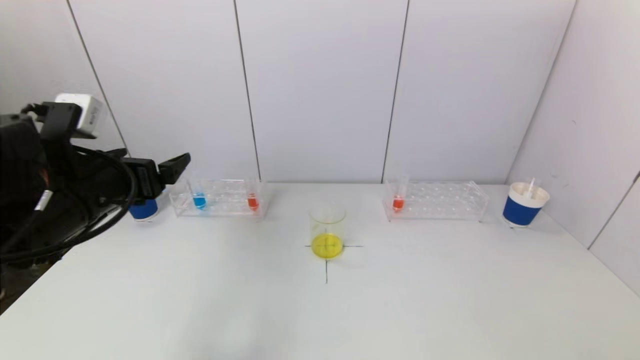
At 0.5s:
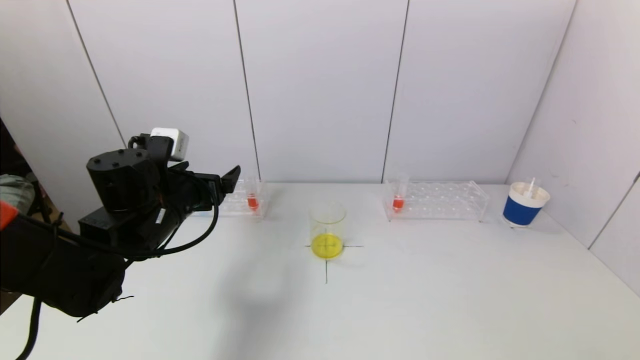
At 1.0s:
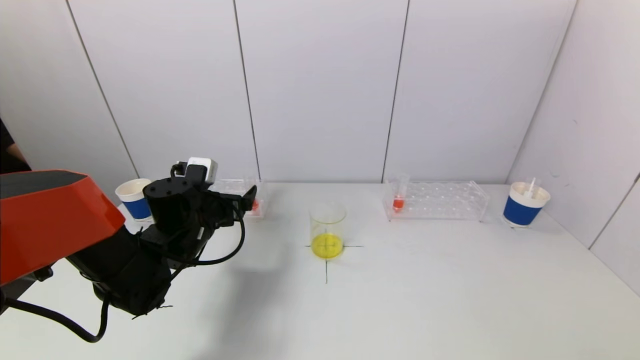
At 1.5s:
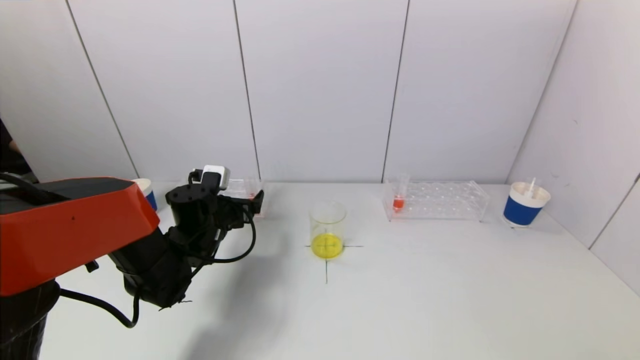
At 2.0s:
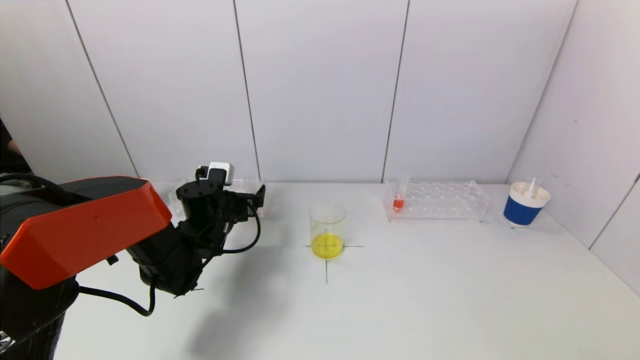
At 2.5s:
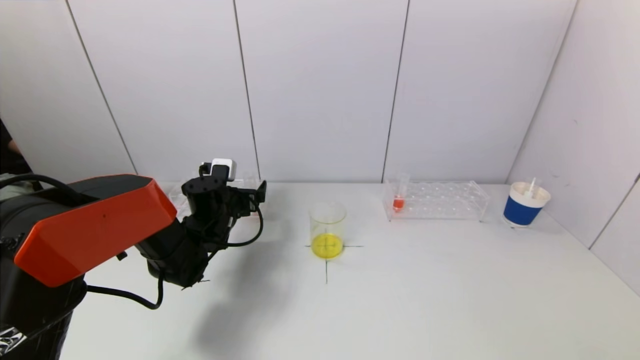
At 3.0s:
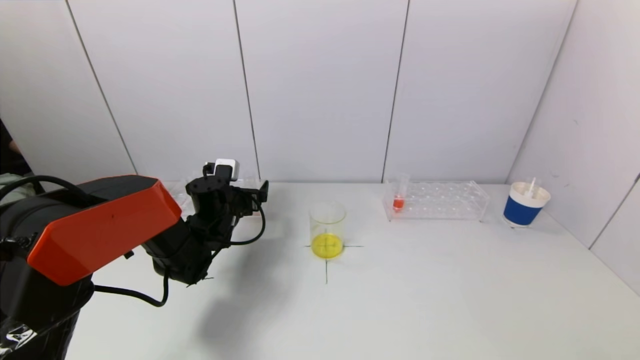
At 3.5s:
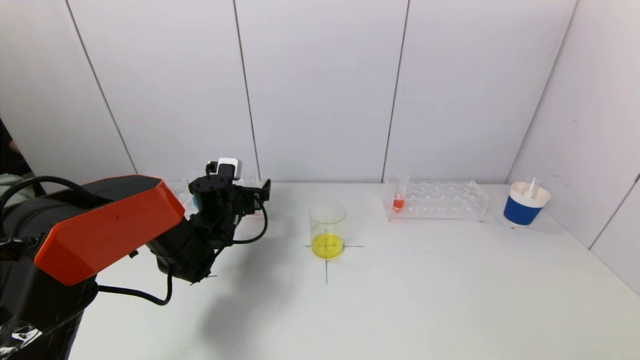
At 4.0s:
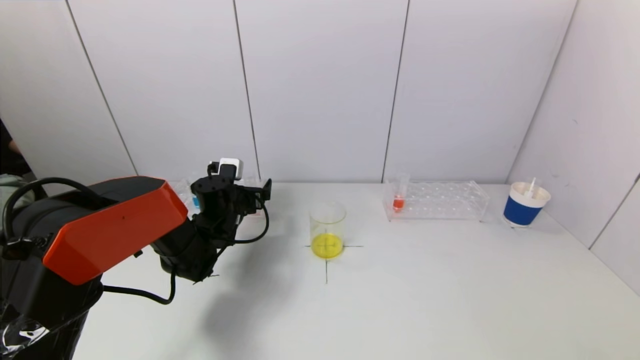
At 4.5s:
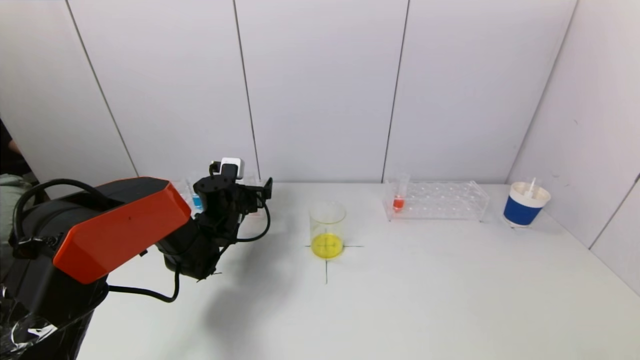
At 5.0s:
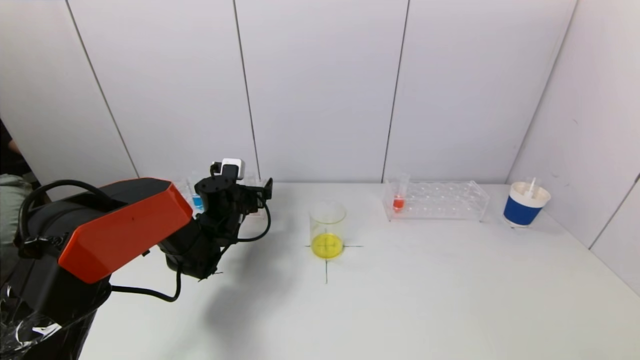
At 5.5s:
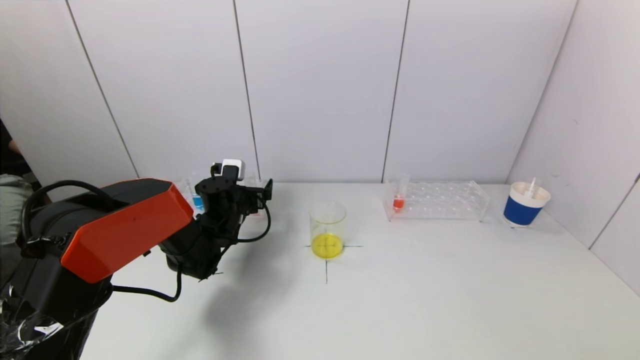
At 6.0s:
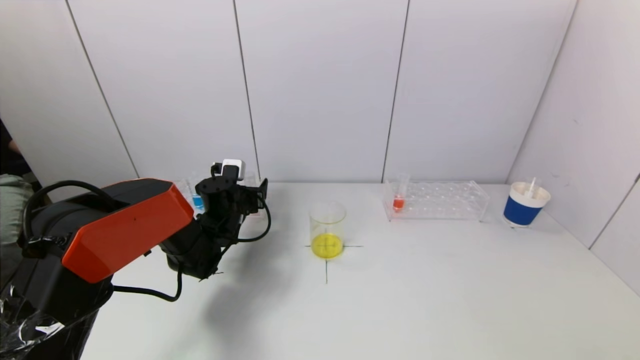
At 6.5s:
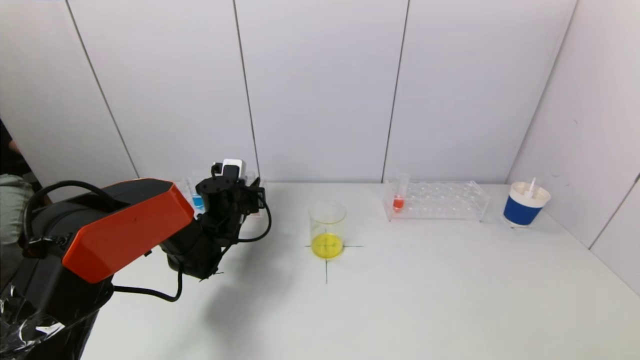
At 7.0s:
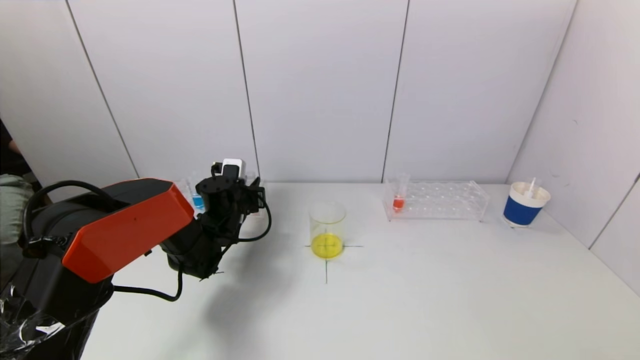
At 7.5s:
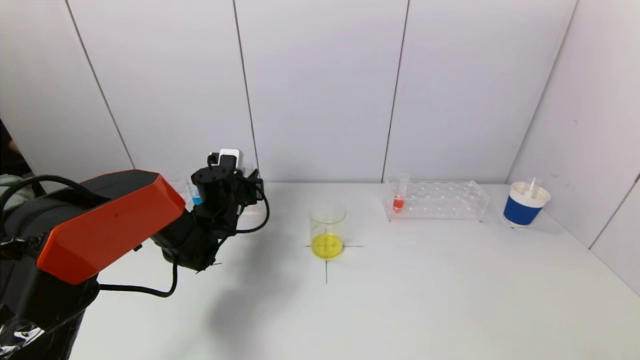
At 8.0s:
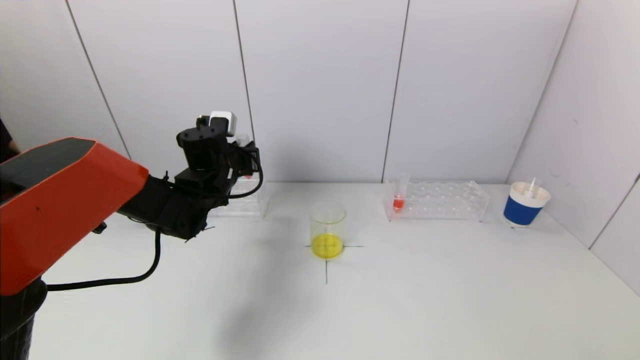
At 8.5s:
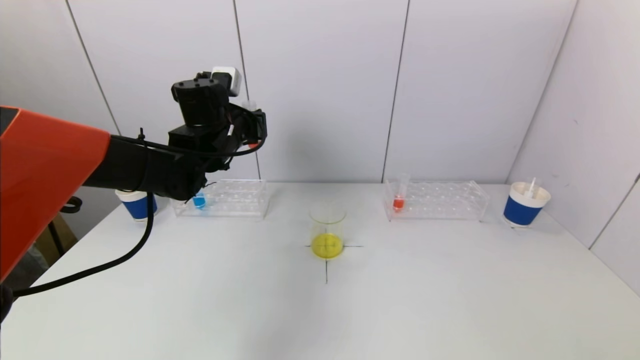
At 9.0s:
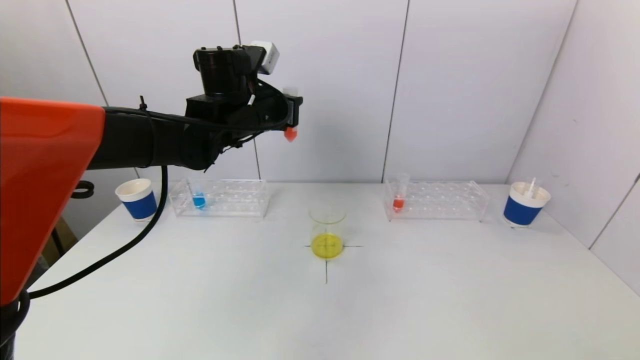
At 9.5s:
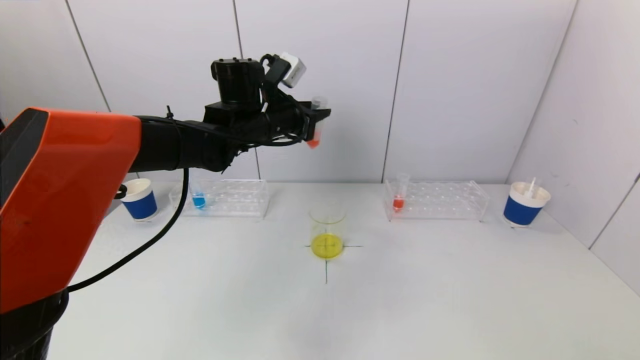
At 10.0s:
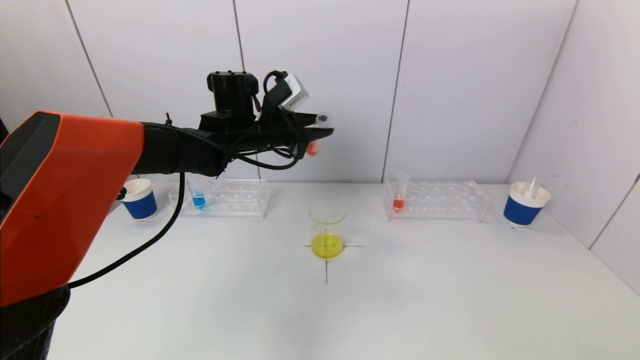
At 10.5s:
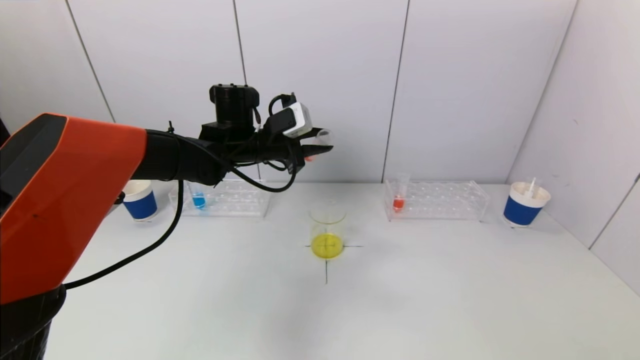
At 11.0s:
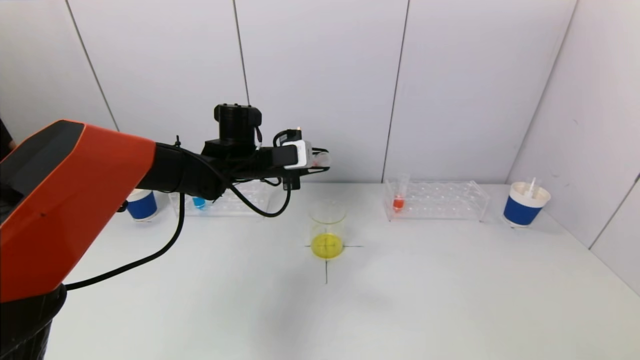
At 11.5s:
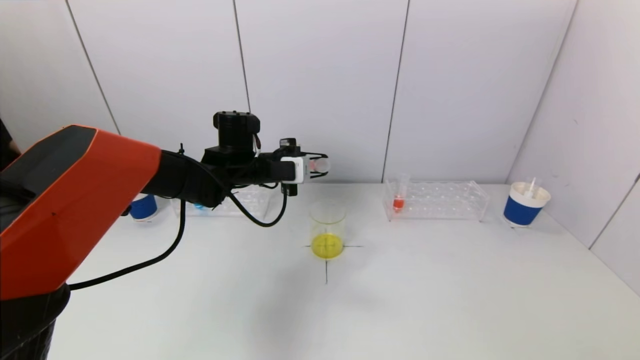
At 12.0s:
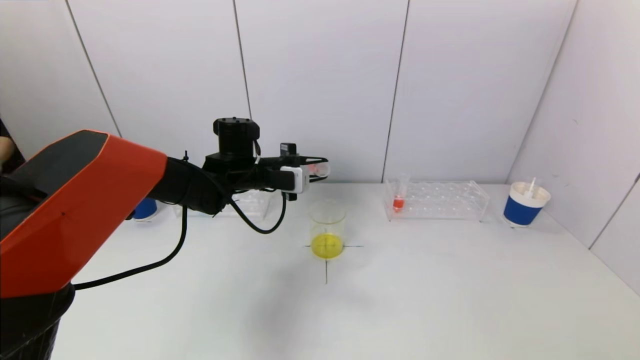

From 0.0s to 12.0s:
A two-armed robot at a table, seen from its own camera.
Task of the whole recording: pick up a test tube with pigment on left test tube rack and a test tube with pigment on right test tube rack by grippers and pour them into the beaker.
Step, from 0.0s to 6.5s: Grasp the red reagent with the left gripper.
From 0.0s to 2.0s: The left gripper travels downward, forward and to the right by about 25 cm.
From 2.0s to 4.0s: The grippers make only small movements.
From 4.0s to 6.0s: The left gripper closes its fingers.
From 6.0s to 8.0s: The left gripper heads upward, covering about 10 cm, and closes up.
From 8.0s to 10.0s: The left gripper travels upward and to the right by some 10 cm.
From 10.0s to 12.0s: The left gripper heads downward, covering roughly 5 cm.

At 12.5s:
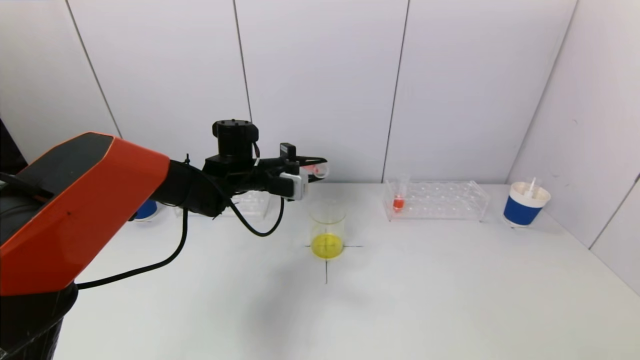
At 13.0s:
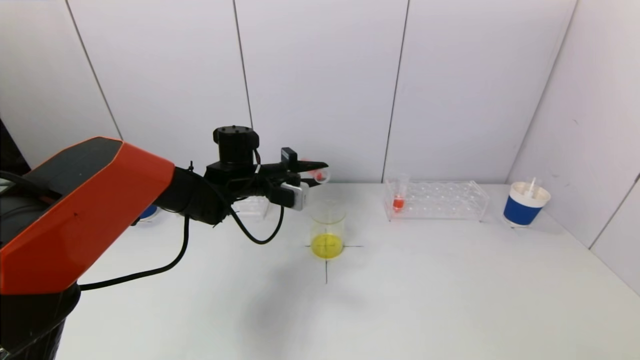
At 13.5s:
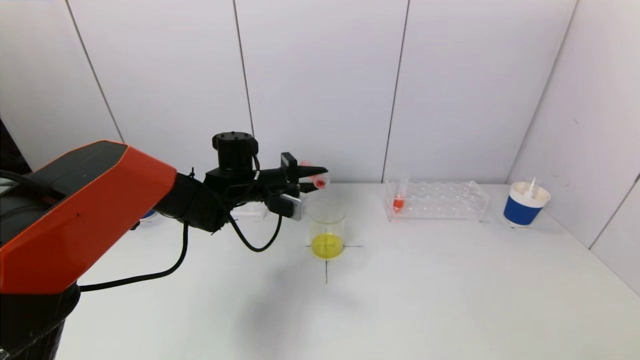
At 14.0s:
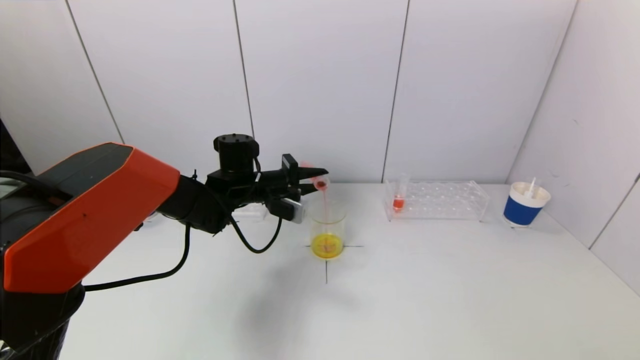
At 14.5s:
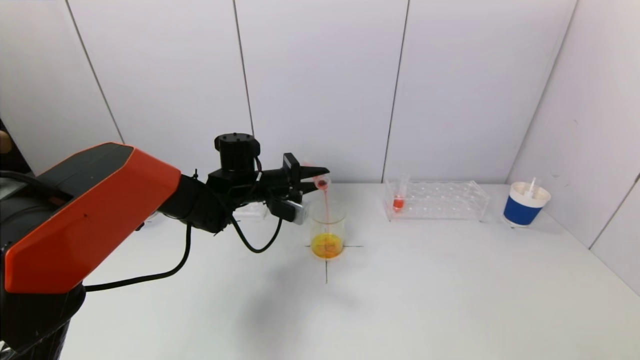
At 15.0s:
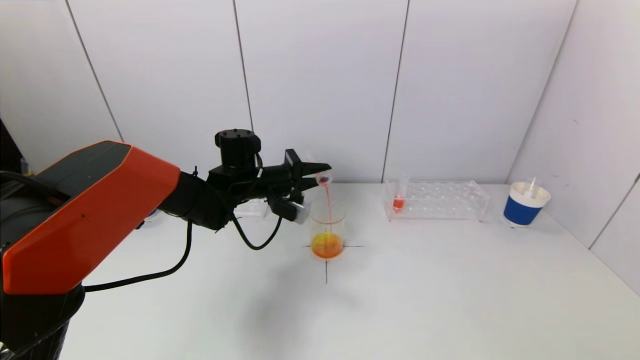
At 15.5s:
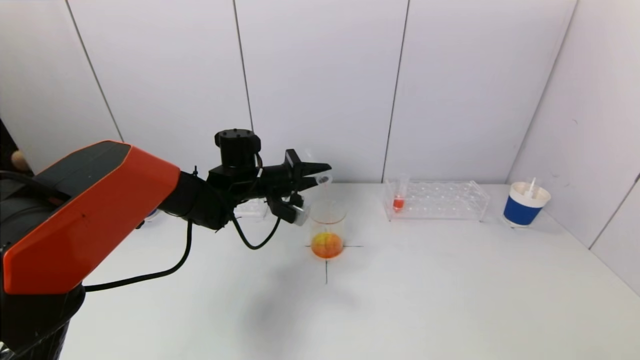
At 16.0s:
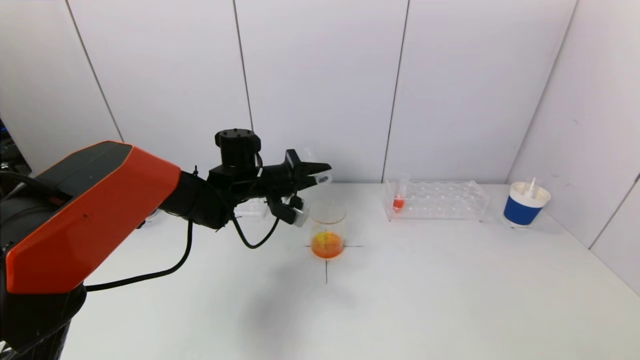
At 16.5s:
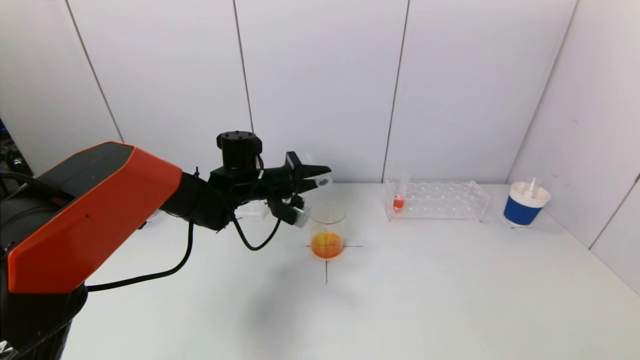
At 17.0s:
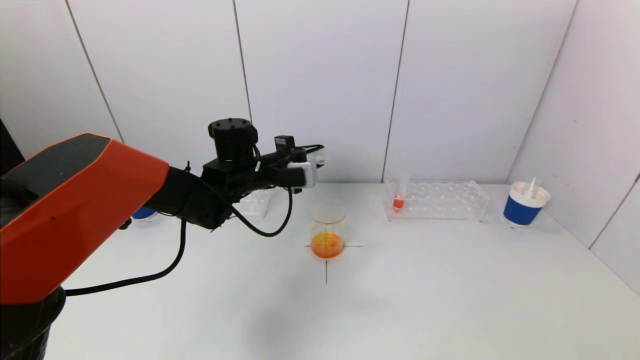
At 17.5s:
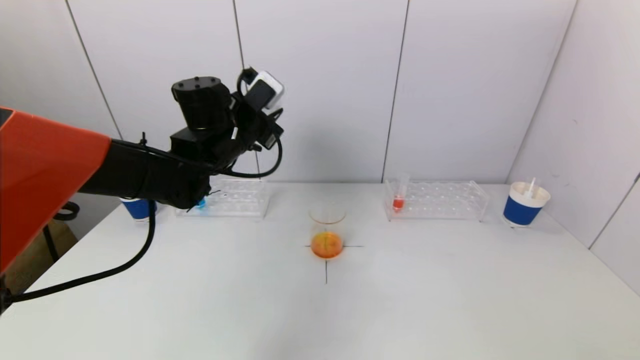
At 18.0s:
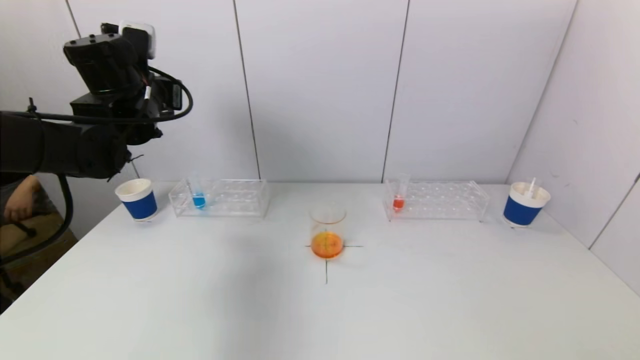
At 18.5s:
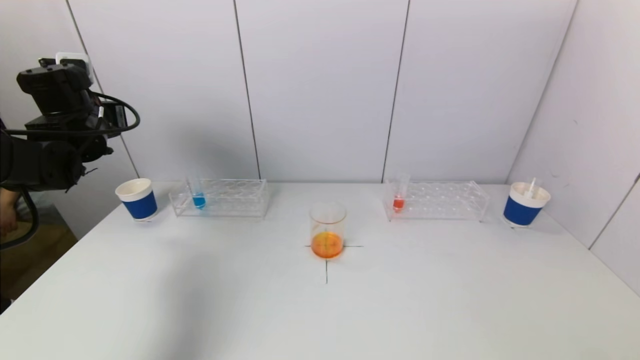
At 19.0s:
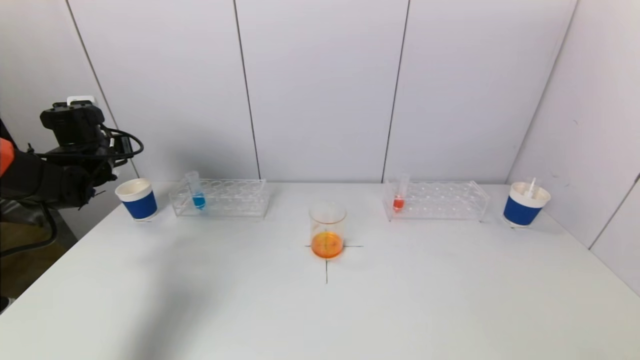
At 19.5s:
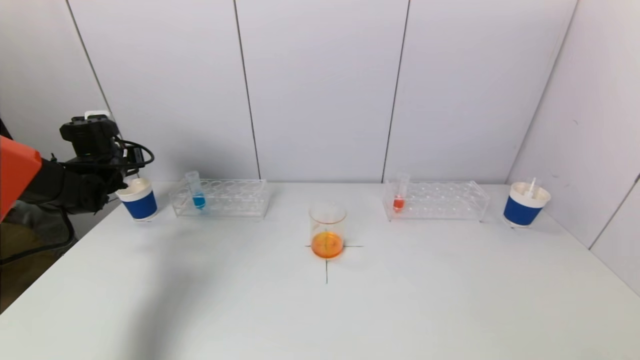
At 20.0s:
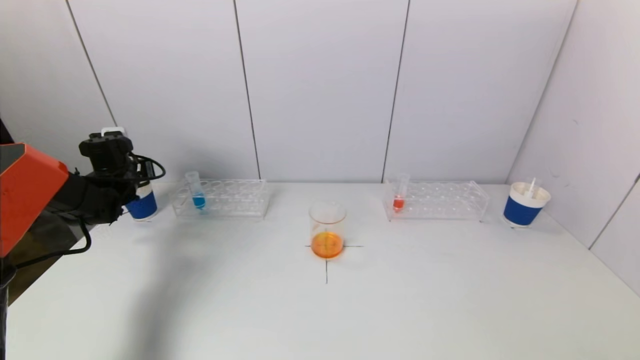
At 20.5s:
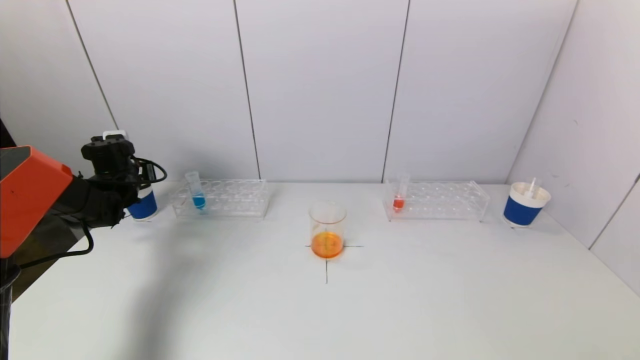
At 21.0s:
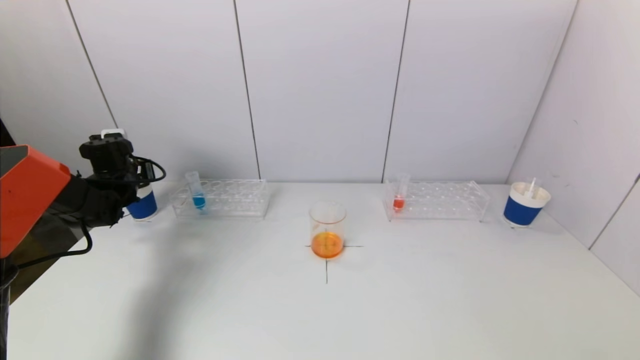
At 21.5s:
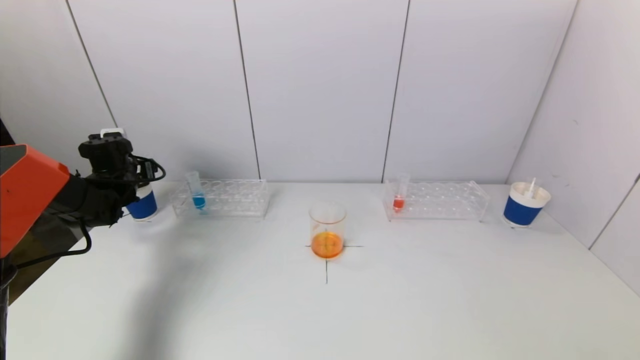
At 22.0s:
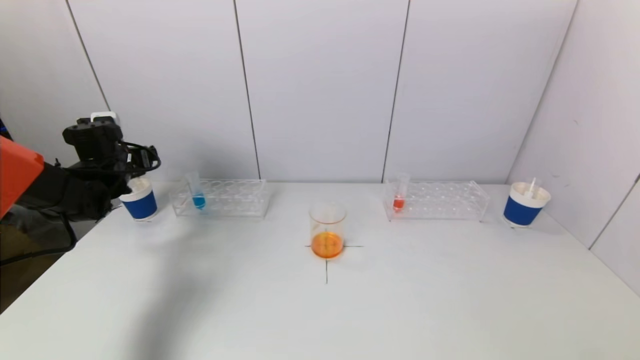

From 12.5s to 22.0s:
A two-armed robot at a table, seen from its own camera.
Task of the whole recording: pick up a test tube with pigment on left test tube rack and a test tube with pigment on right test tube rack by grippers and pour them into the beaker.
Step, from 12.5s to 16.5s: Pour the red reagent into the graduated cylinder with the left gripper.
Step, from 17.0s to 21.5s: Place the test tube into the paper cup with the left gripper.
From 12.5s to 14.5s: The grippers move only a little.
From 14.5s to 16.5s: The grippers make only small movements.
From 16.5s to 18.0s: The left gripper is displaced upward and to the left by some 20 cm.
From 18.0s to 20.0s: The left gripper heads downward, to the left and forward, covering some 25 cm.
From 20.0s to 22.0s: The left gripper opens up.
